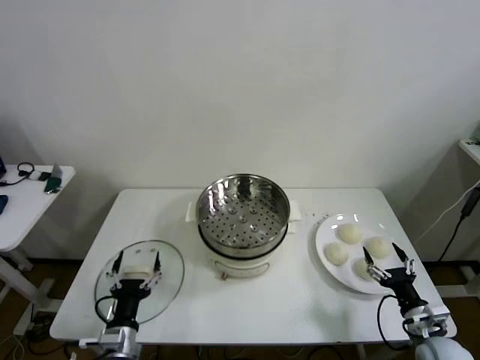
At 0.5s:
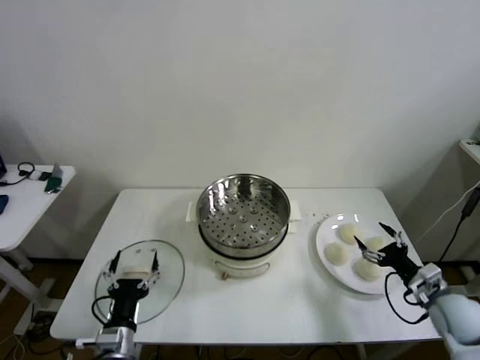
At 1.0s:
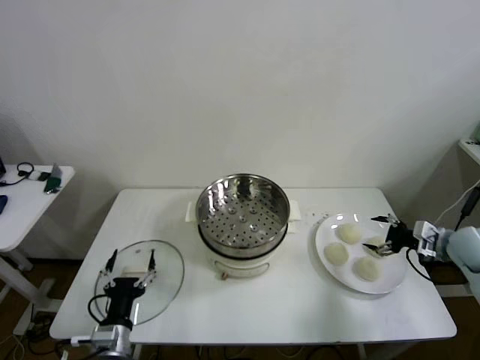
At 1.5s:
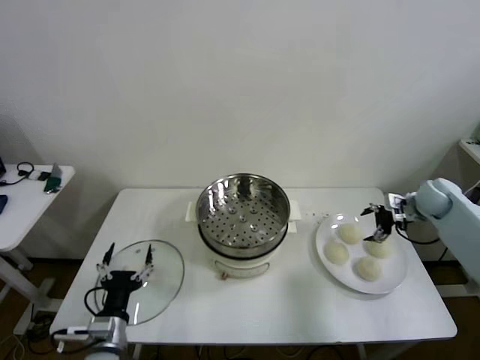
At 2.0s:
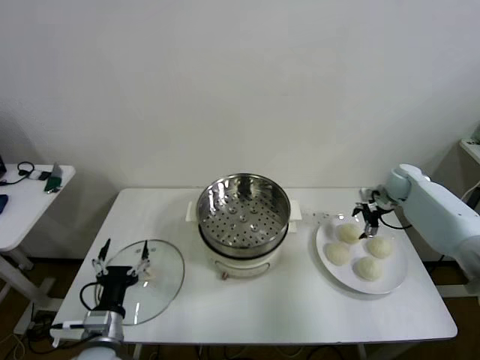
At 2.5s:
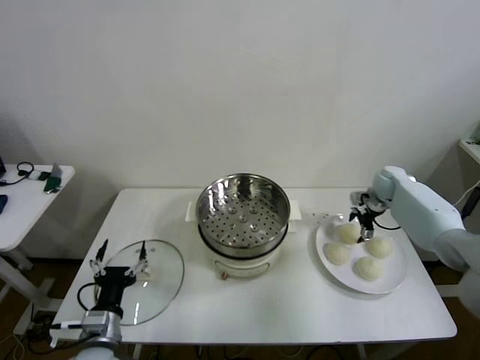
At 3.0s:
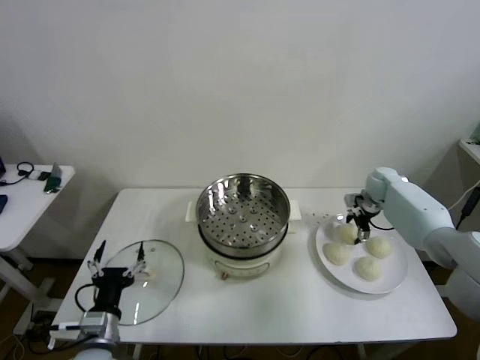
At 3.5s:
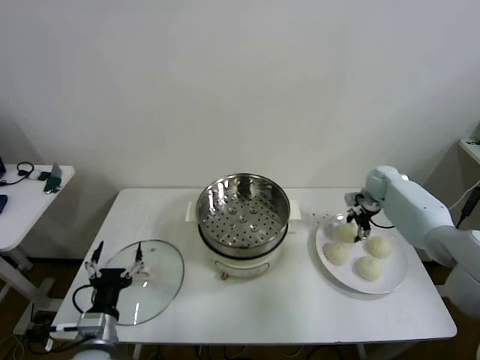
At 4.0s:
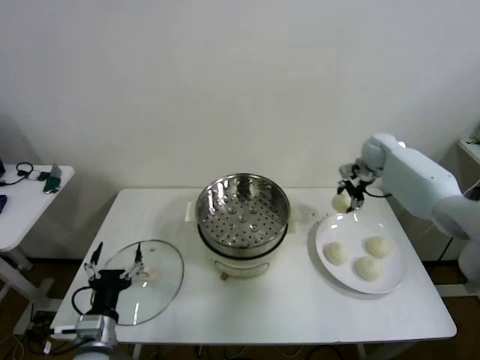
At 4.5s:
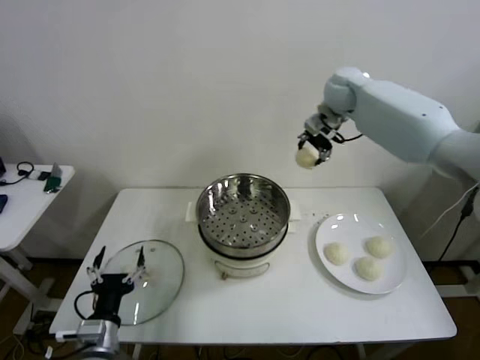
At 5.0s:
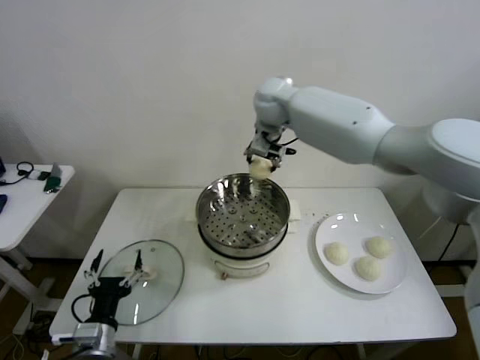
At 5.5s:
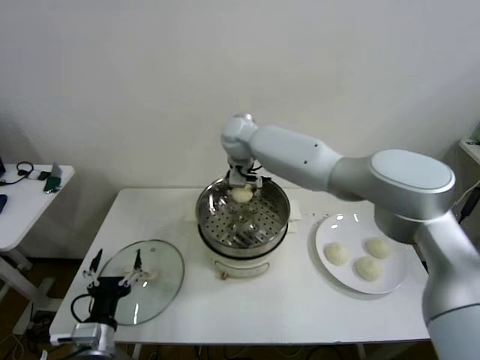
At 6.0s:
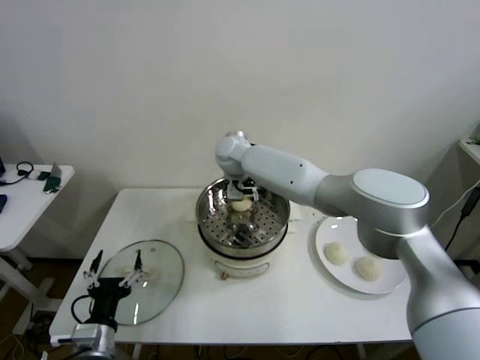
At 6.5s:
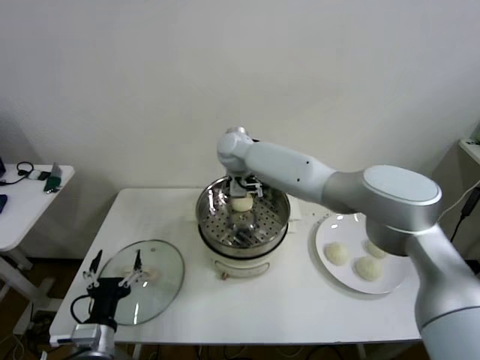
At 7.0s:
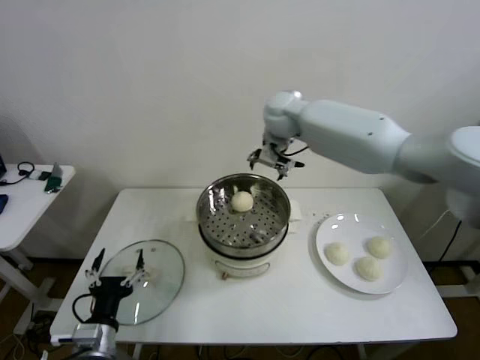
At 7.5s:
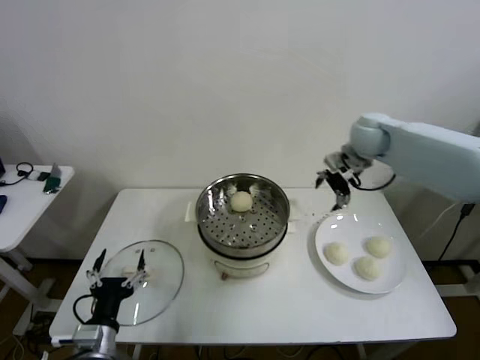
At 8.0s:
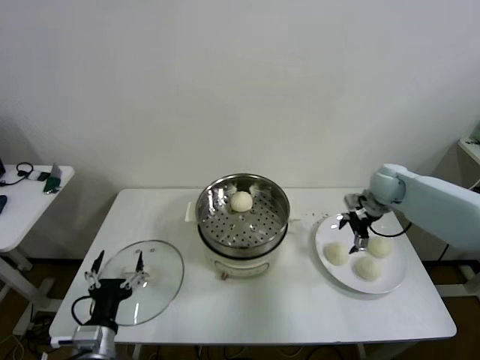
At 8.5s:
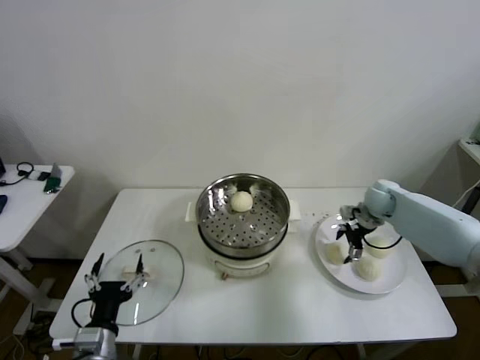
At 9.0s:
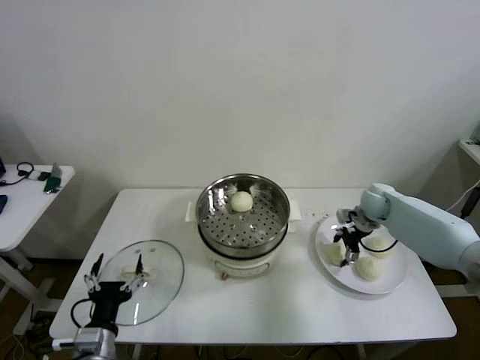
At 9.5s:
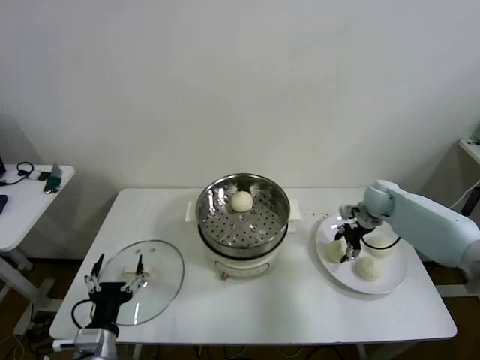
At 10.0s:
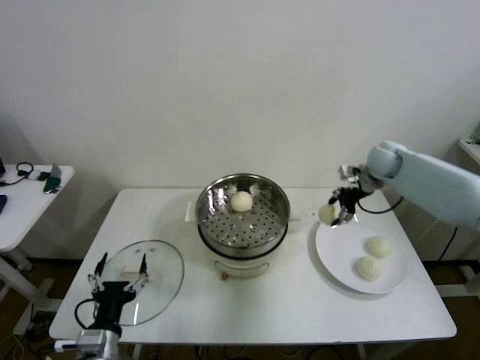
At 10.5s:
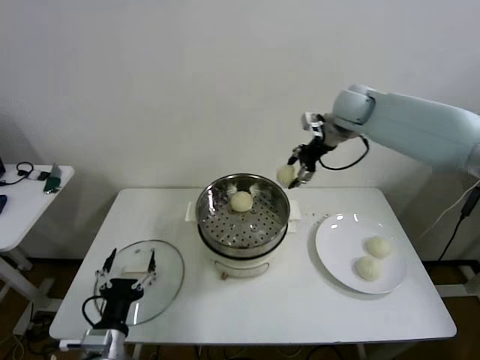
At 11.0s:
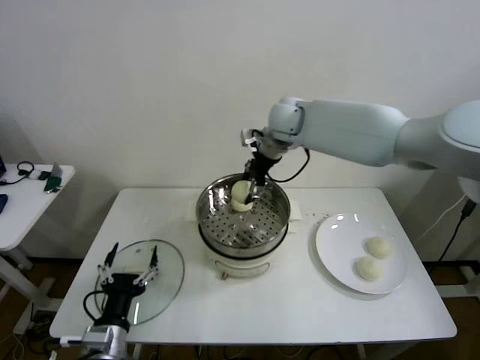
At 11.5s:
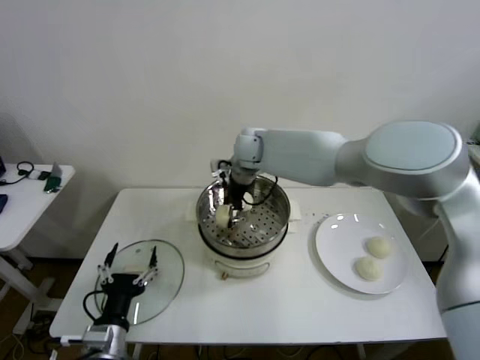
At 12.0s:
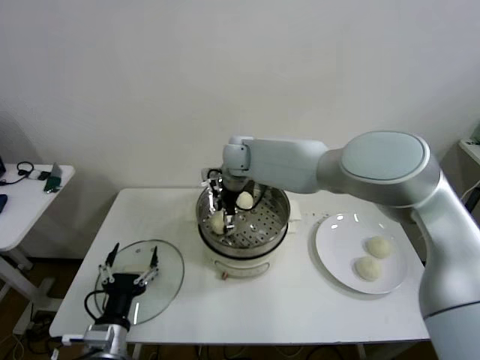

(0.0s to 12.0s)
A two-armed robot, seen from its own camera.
Step, 0.0s - 3.5s: Grasp the baozi in the plate with right gripper.
Step, 4.0s - 6.0s: Place the baozi on the steamer with right gripper.
Step, 6.5s - 9.0s: Grasp the baozi in the plate with right gripper.
2.0s - 4.0s: The right gripper is displaced upward, to the left and forward by about 15 cm, and closes.
4.0s - 6.0s: The right gripper moves to the left, roughly 35 cm, and opens its fingers.
6.0s - 8.0s: The right gripper is displaced to the right by approximately 40 cm, and opens its fingers.
8.0s - 10.0s: The right gripper heads upward, covering about 10 cm, and closes up.
10.0s - 12.0s: The right gripper shifts about 35 cm to the left, and opens up.

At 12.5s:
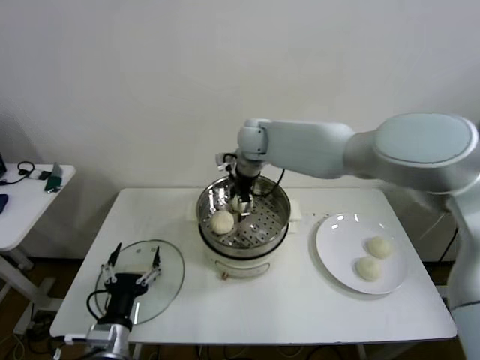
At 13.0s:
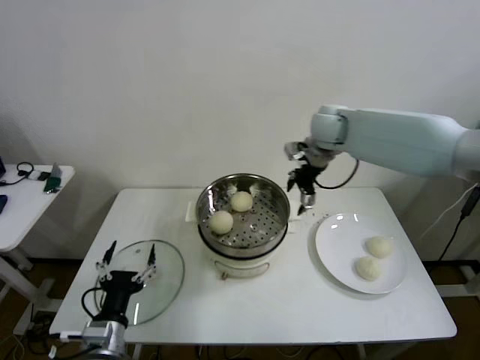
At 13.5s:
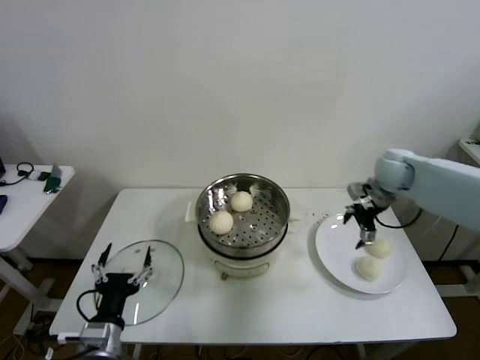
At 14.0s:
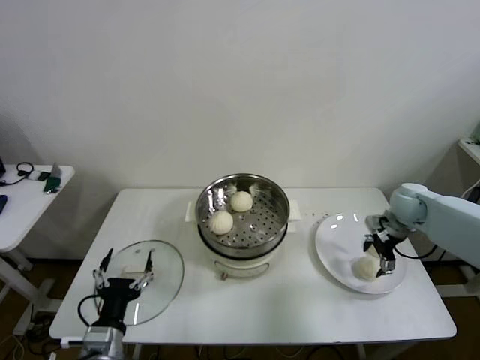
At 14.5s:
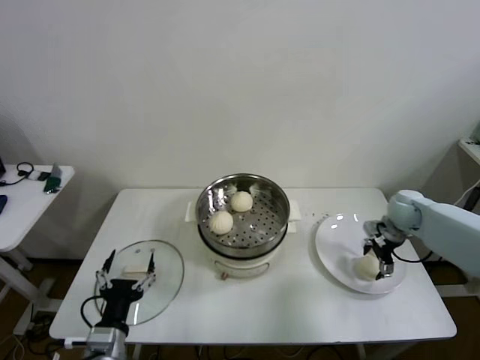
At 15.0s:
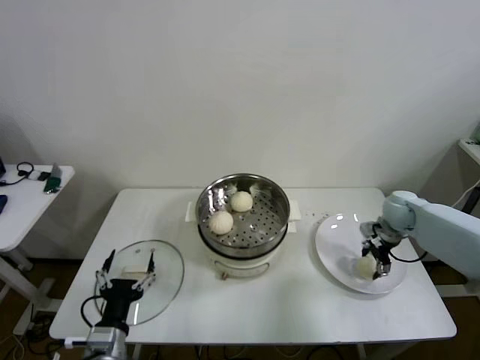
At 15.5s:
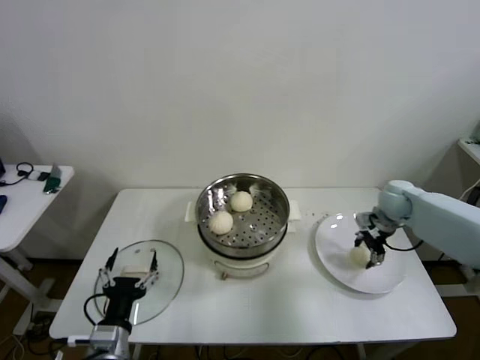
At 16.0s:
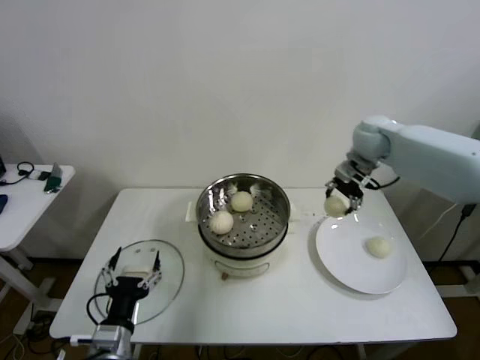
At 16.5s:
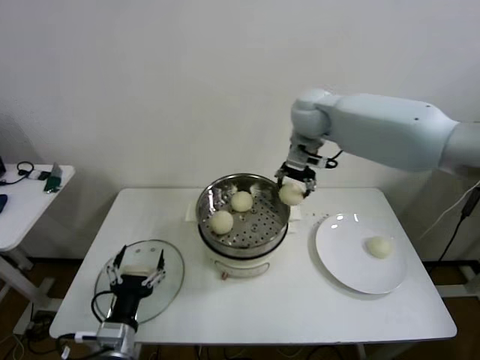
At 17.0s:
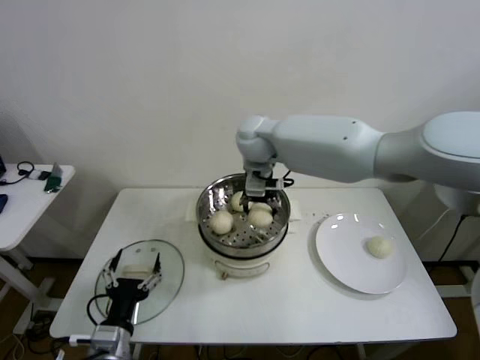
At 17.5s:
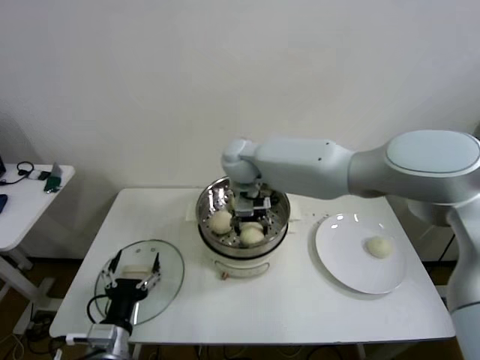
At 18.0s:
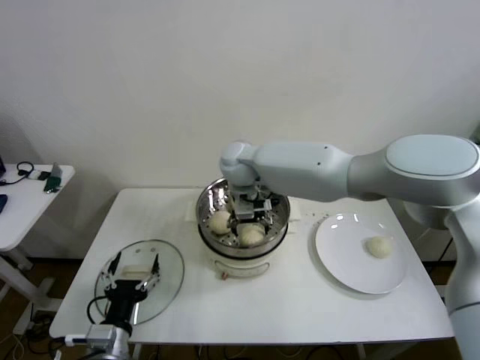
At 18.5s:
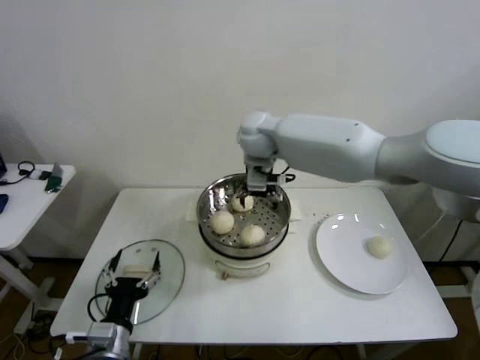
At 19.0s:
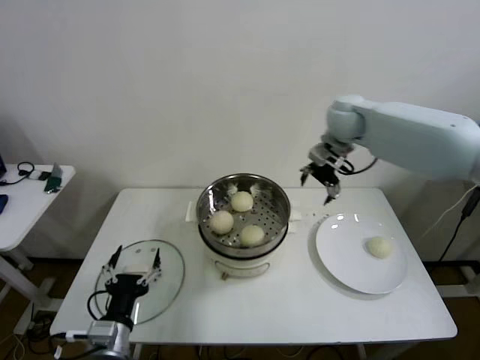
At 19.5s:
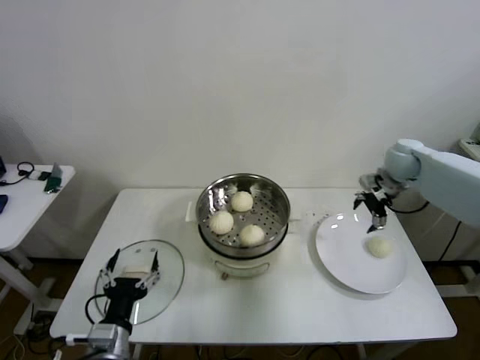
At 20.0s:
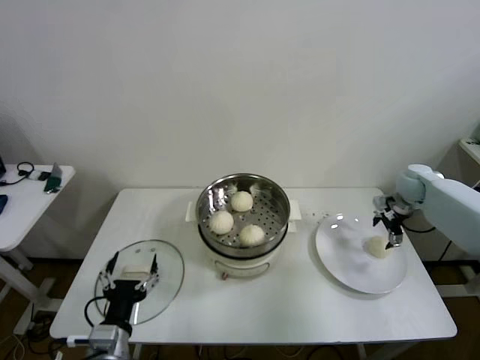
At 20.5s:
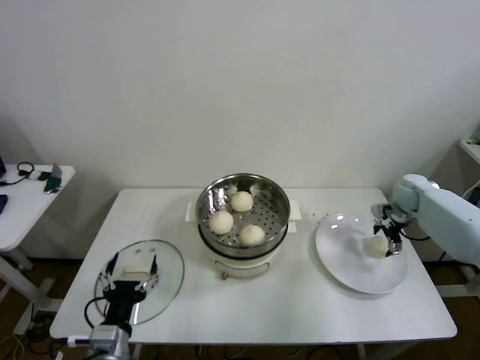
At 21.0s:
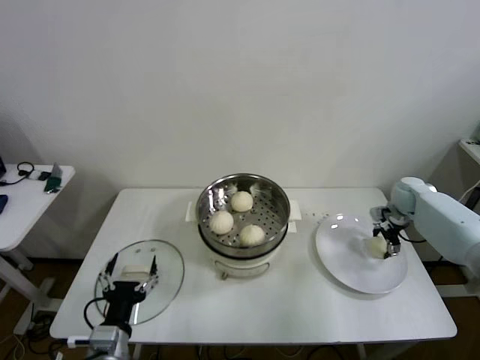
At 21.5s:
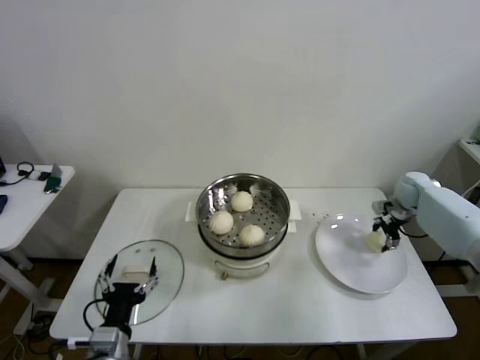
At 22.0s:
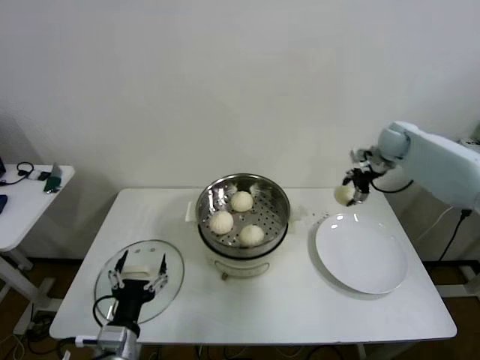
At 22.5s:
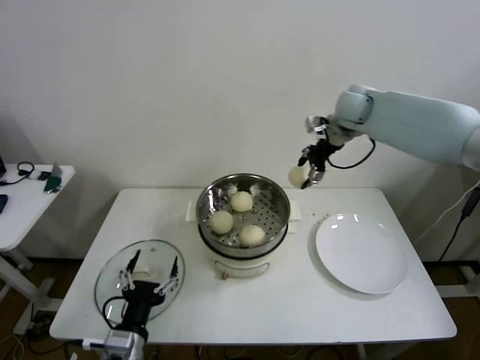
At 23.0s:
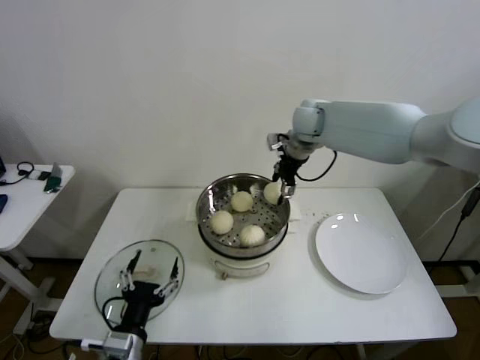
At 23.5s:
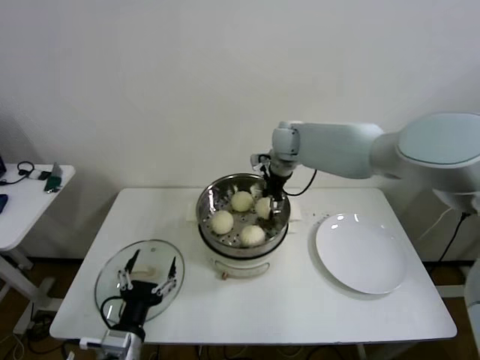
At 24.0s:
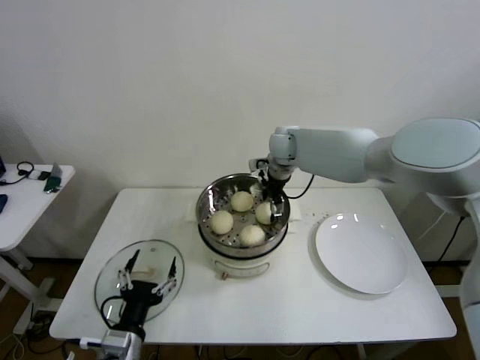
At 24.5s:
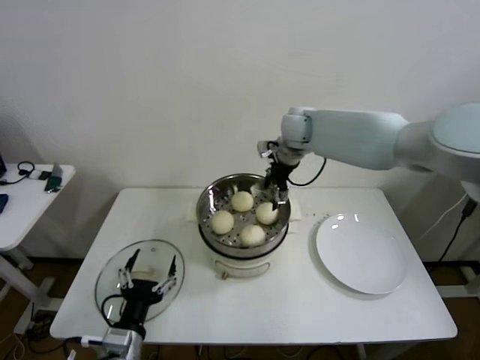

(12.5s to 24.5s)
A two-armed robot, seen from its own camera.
Step, 12.5s - 15.0s: Grasp the baozi in the plate with right gripper.
Step, 15.5s - 18.0s: Place the baozi on the steamer with right gripper.
Step, 18.5s - 21.0s: Grasp the baozi in the plate with right gripper.
Step, 21.5s - 24.0s: Place the baozi on the steamer with right gripper.
12.5s - 14.5s: The right gripper goes some 40 cm to the right and downward.
14.5s - 16.5s: The right gripper moves to the left and upward, about 35 cm, and closes.
16.5s - 18.5s: The right gripper shifts approximately 10 cm to the left, and opens its fingers.
18.5s - 20.5s: The right gripper is displaced to the right and downward by about 50 cm.
20.5s - 22.5s: The right gripper goes about 30 cm upward and to the left, and closes.
22.5s - 24.5s: The right gripper is displaced to the left by about 10 cm, and opens.

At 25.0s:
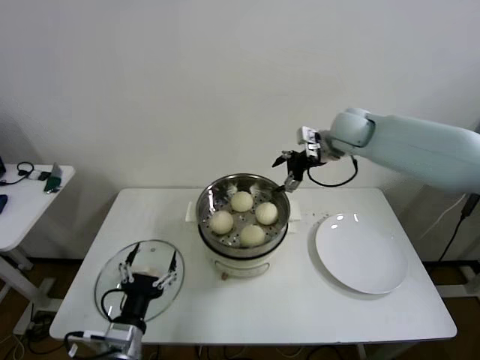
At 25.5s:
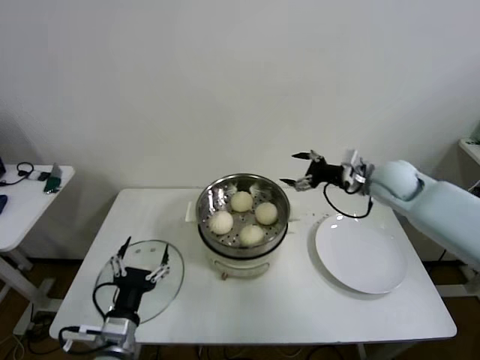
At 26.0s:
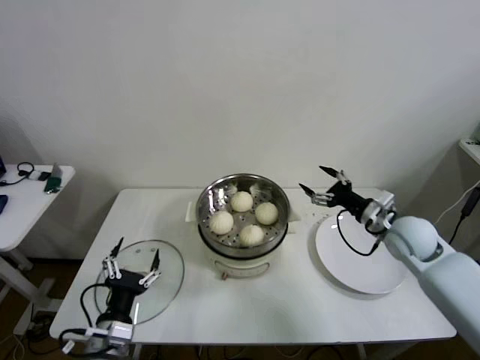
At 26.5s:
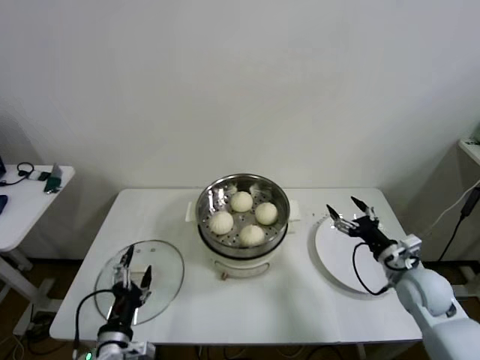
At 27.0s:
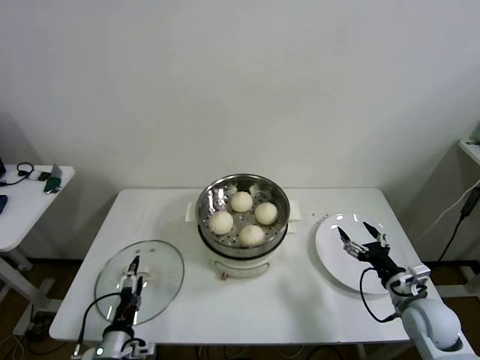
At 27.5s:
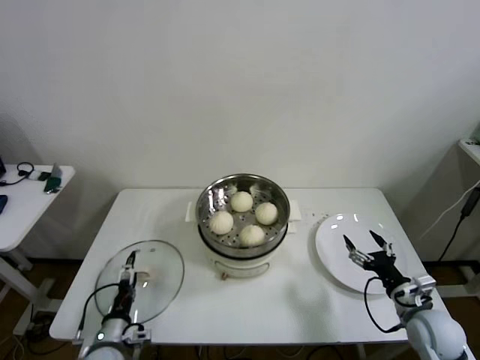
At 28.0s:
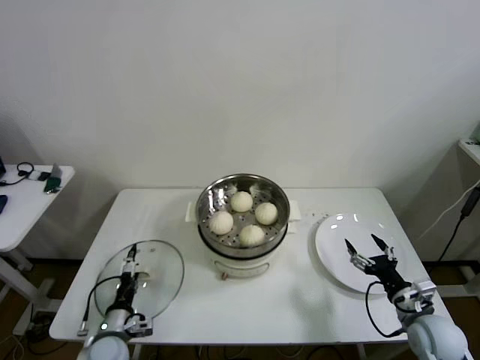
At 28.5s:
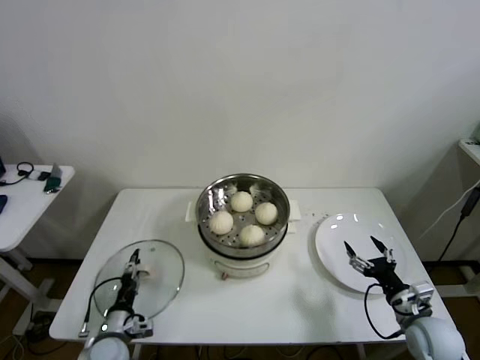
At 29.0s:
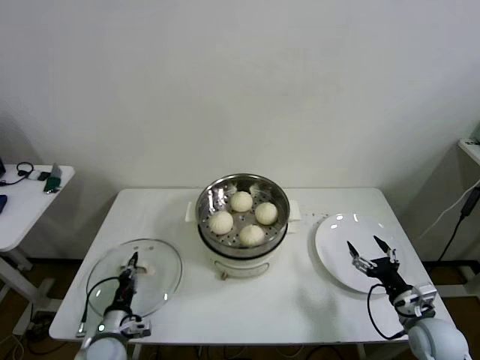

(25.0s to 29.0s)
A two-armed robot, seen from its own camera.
Step, 25.0s - 28.5s: Grasp the pot lid with left gripper.
25.0s - 27.0s: The left gripper heads downward, covering about 10 cm. Meanwhile the right gripper goes about 40 cm backward, downward and to the right.
27.0s - 29.0s: The left gripper shifts about 10 cm forward and downward, and closes its fingers.
